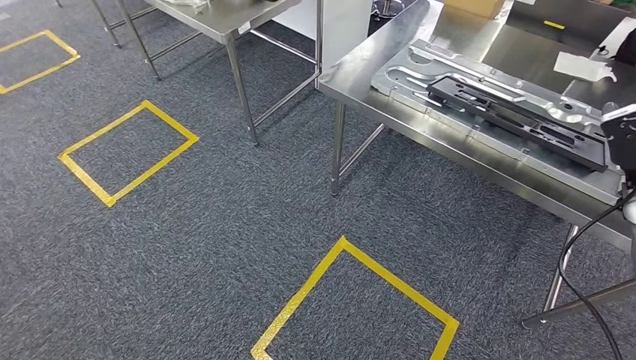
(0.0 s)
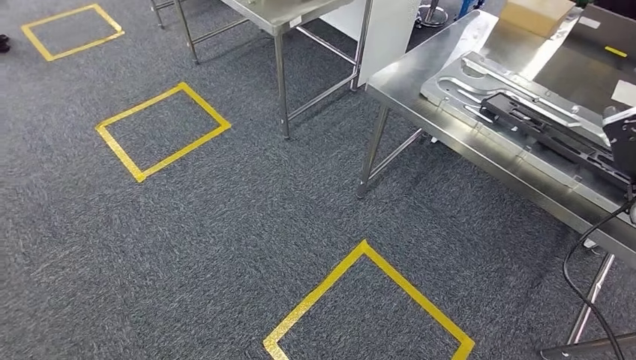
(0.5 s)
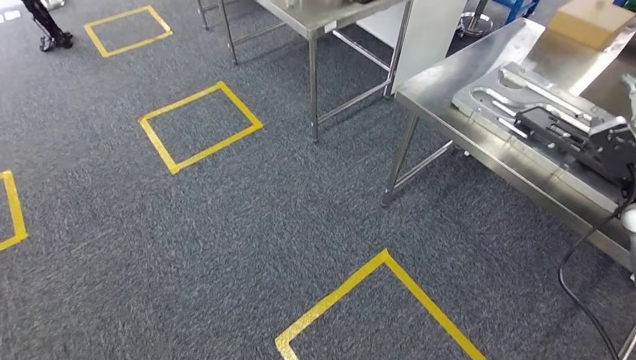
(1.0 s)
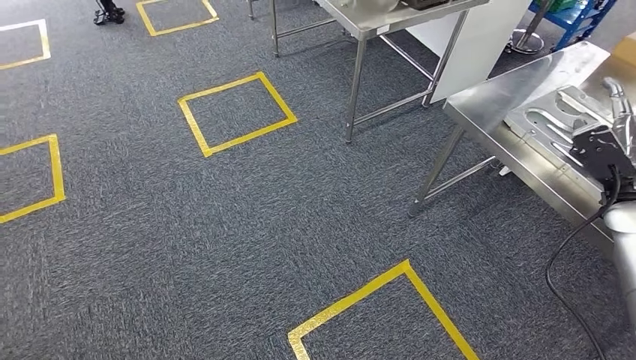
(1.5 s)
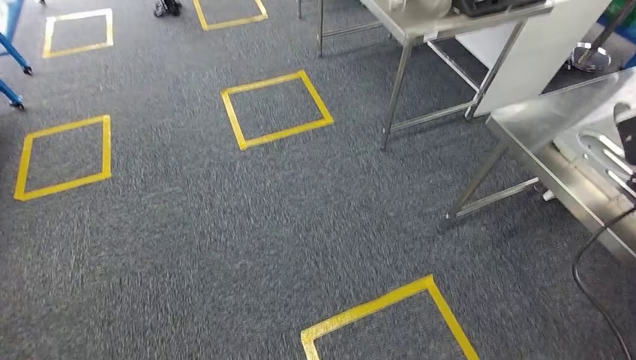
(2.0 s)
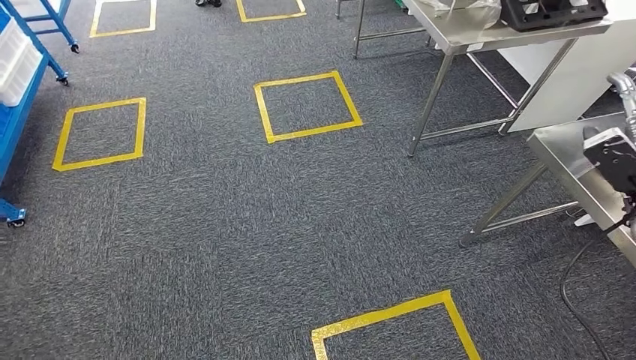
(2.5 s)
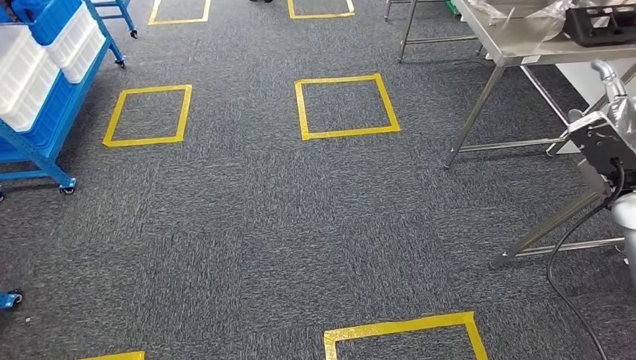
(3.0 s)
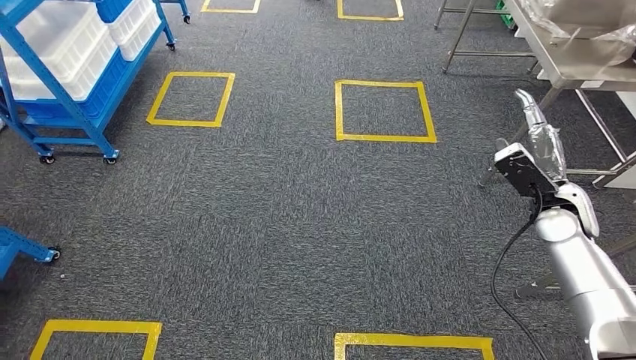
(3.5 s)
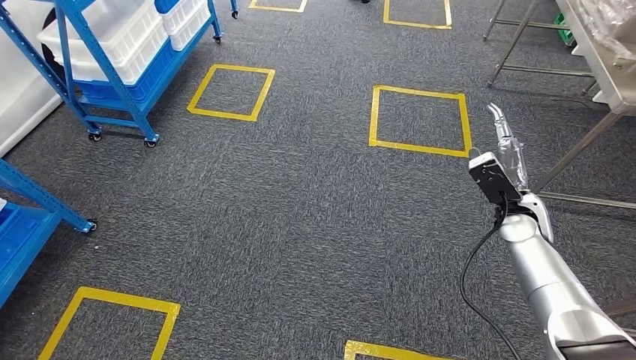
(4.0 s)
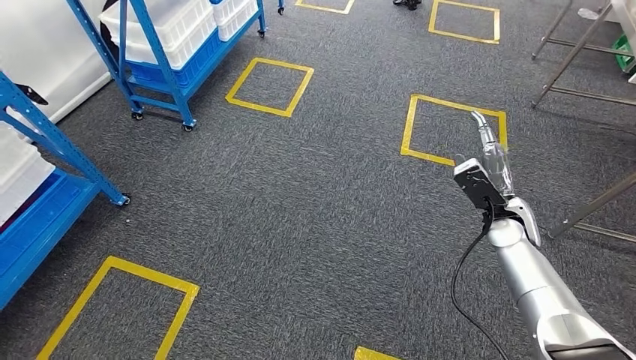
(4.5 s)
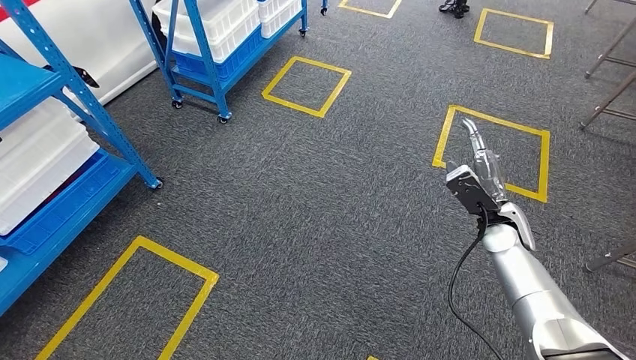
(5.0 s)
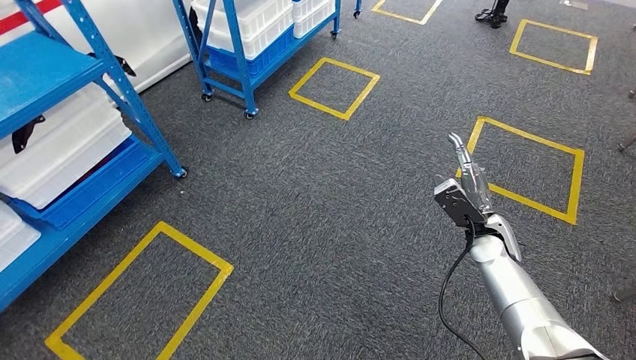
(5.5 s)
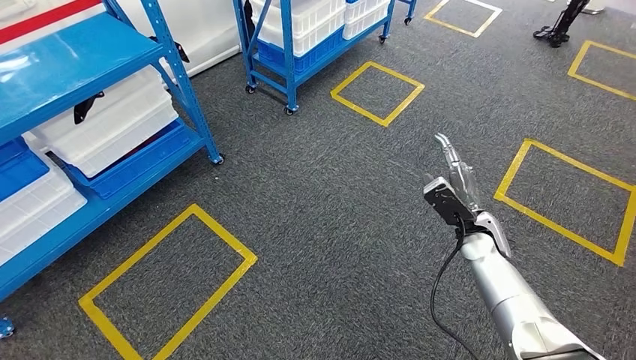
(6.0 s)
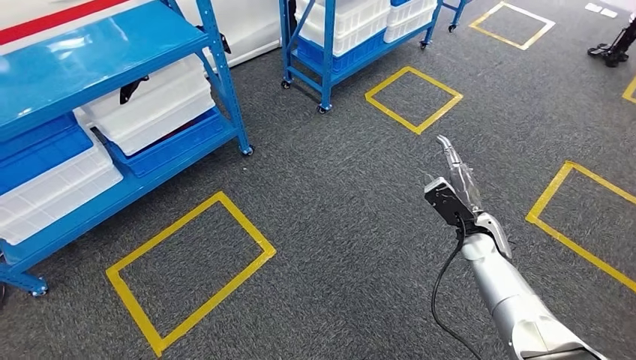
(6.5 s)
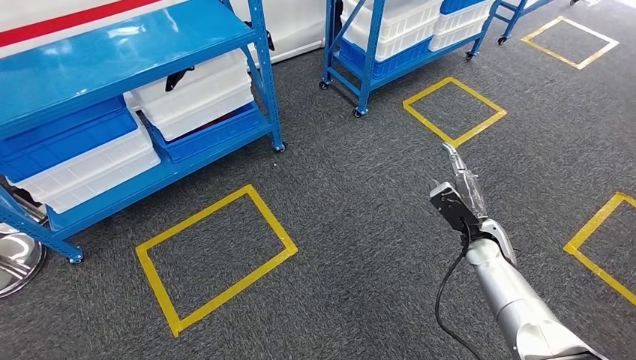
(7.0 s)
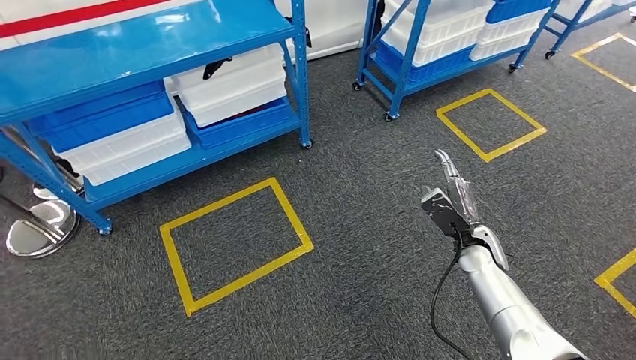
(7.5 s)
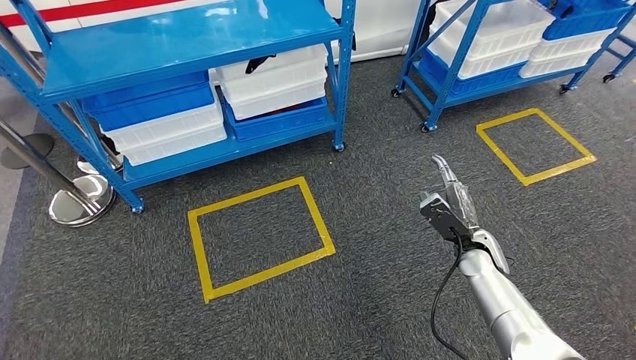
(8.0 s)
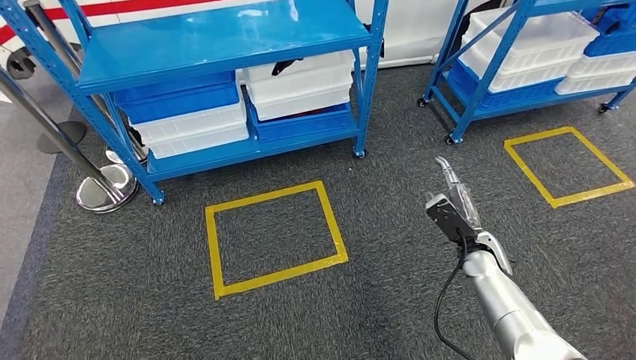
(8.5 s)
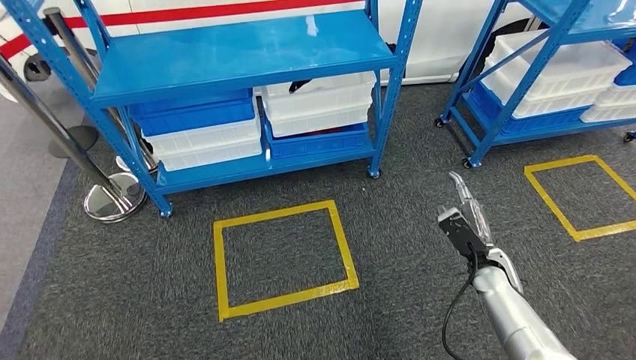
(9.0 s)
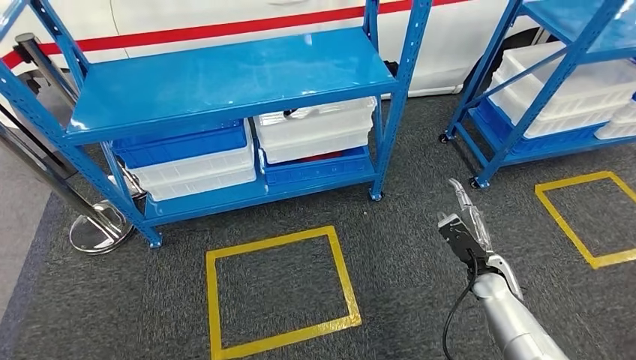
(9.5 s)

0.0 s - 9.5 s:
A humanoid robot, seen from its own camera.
Step, 0.0 s - 9.5 s: Move to the initial position of the shelf.
